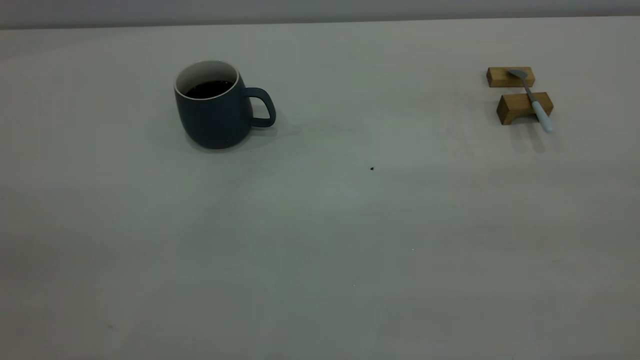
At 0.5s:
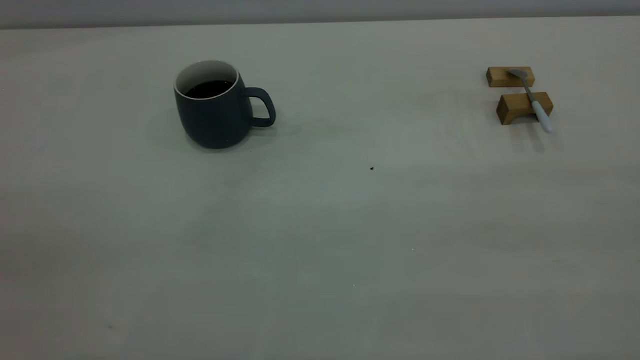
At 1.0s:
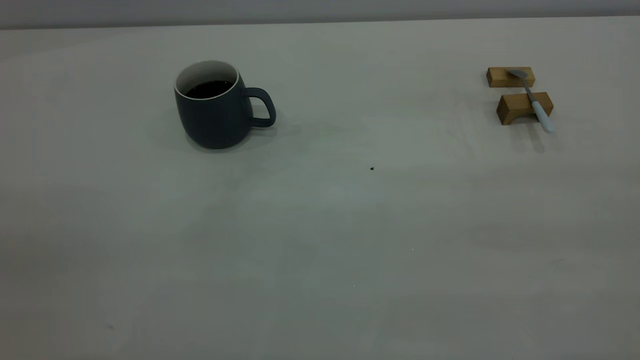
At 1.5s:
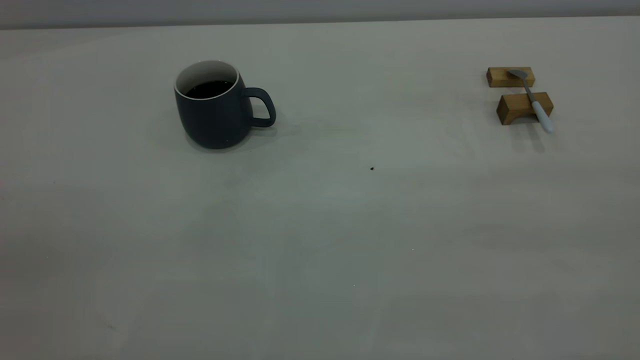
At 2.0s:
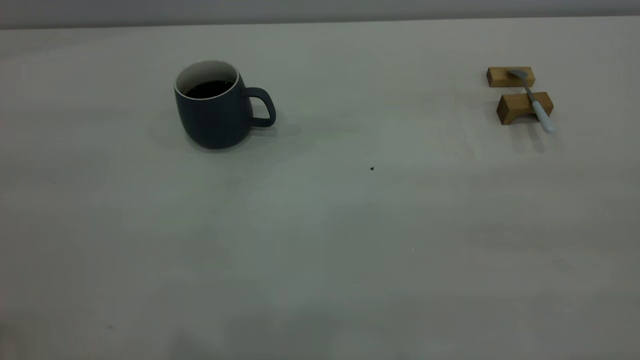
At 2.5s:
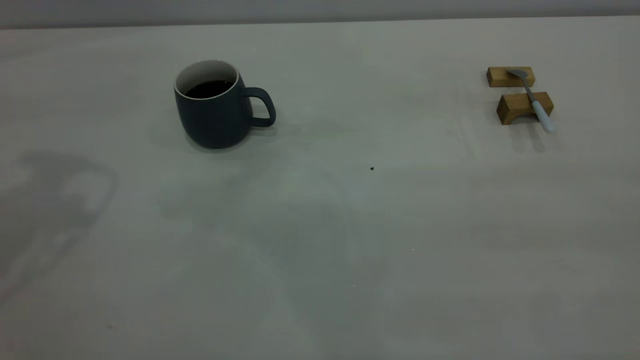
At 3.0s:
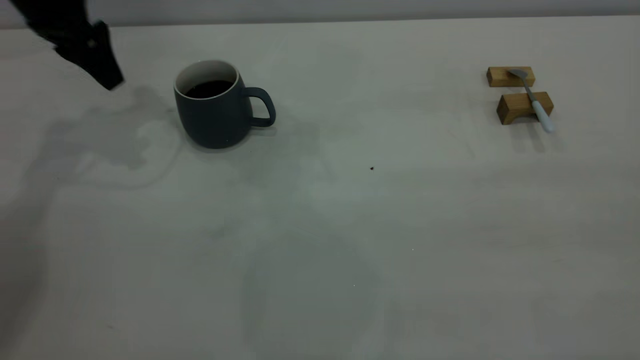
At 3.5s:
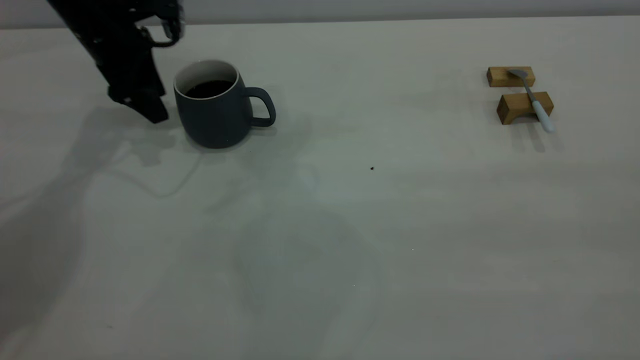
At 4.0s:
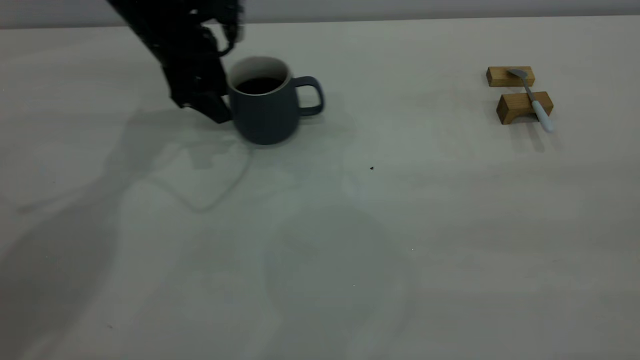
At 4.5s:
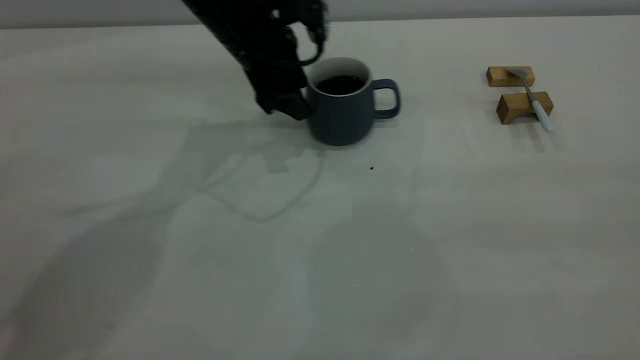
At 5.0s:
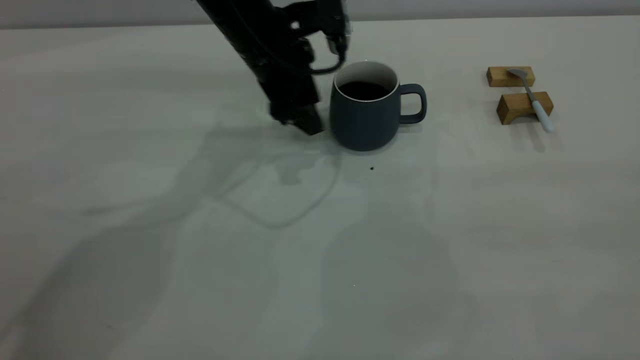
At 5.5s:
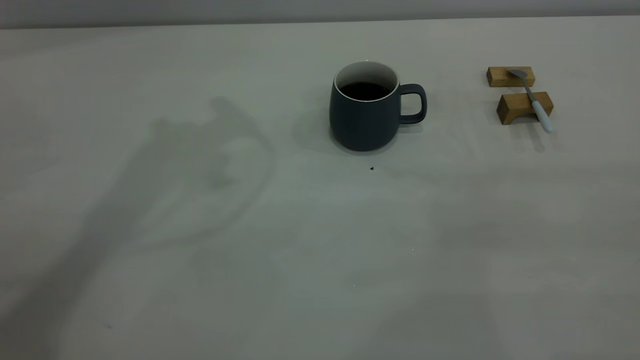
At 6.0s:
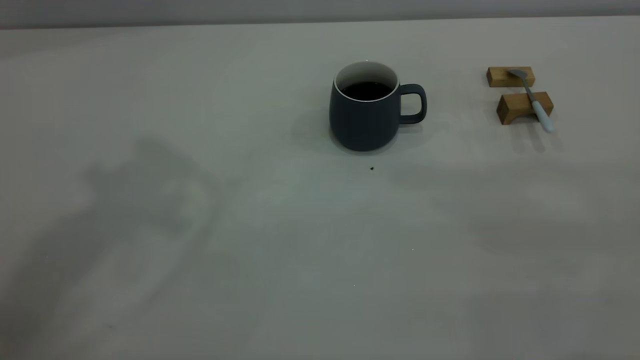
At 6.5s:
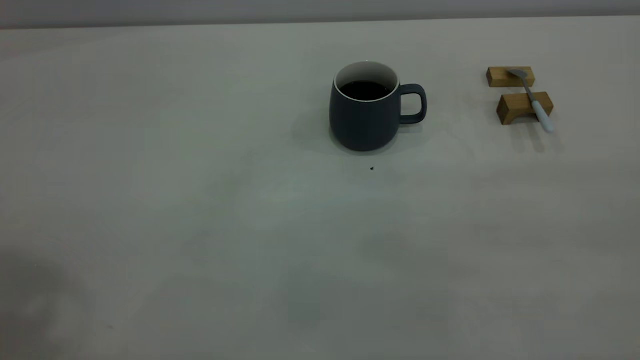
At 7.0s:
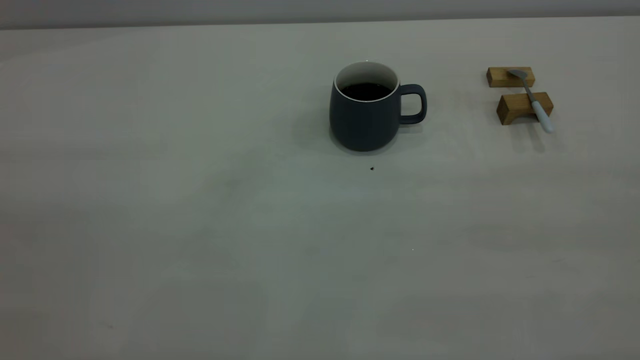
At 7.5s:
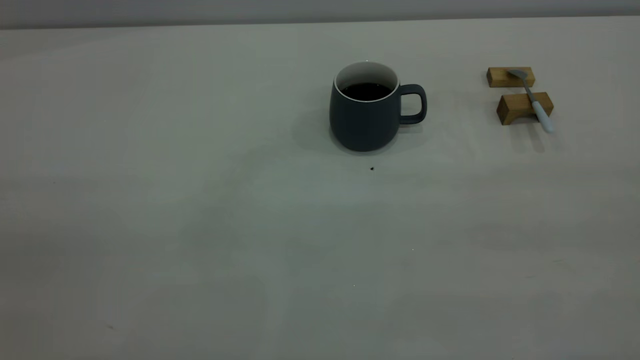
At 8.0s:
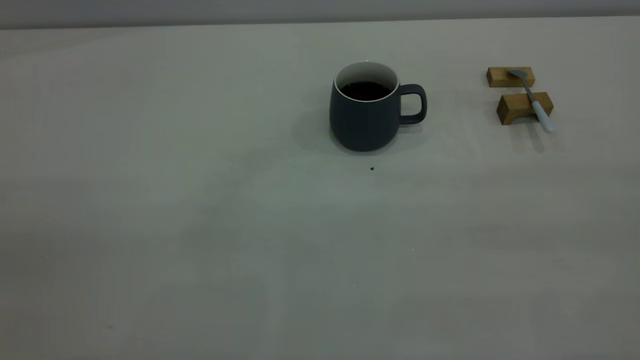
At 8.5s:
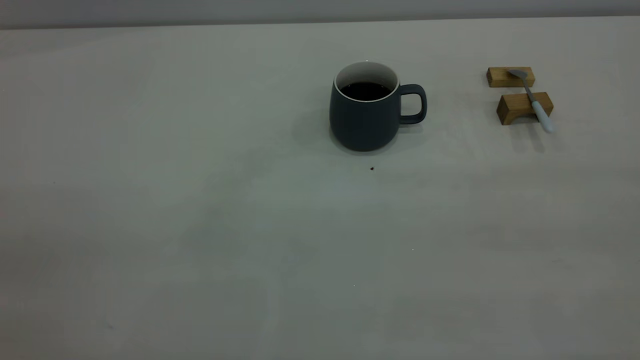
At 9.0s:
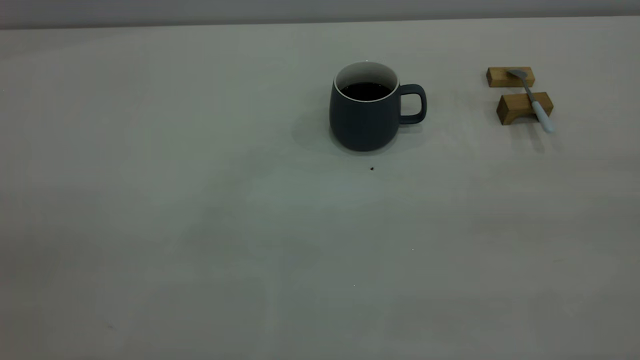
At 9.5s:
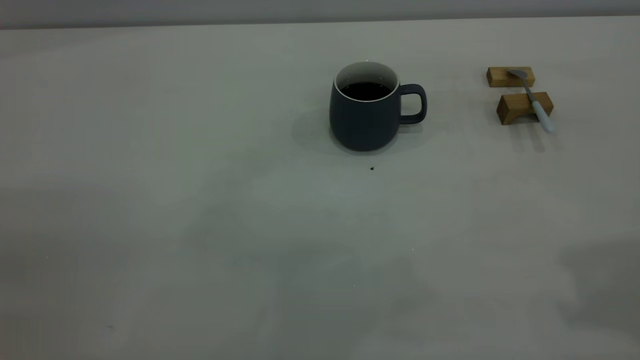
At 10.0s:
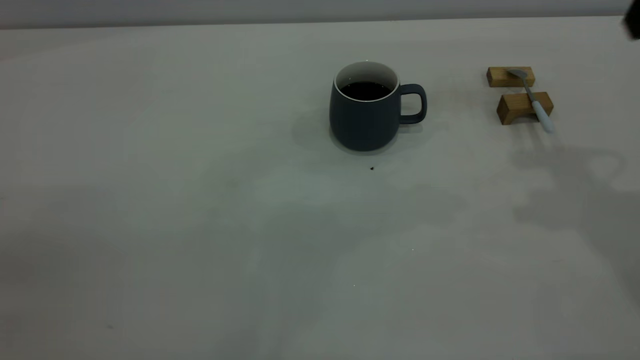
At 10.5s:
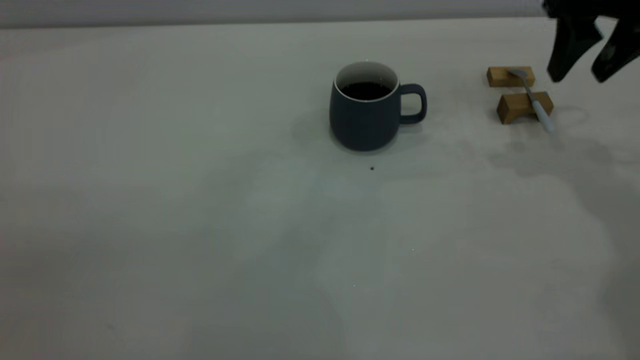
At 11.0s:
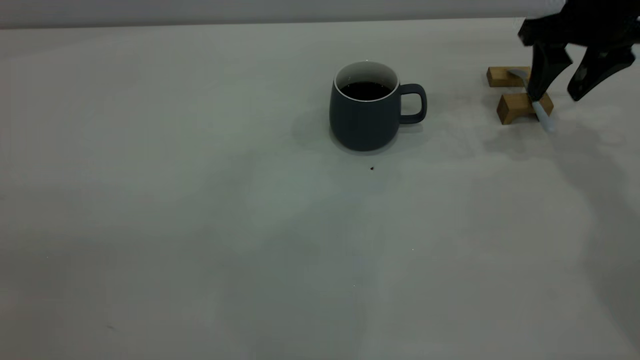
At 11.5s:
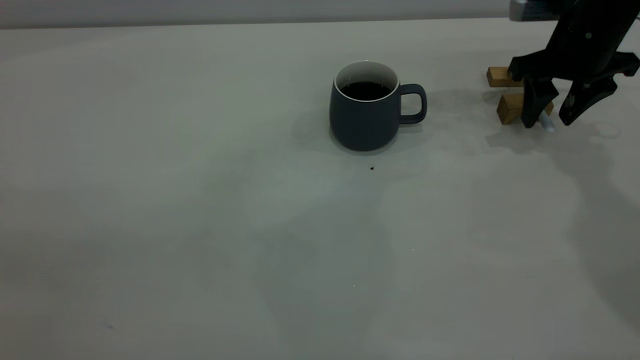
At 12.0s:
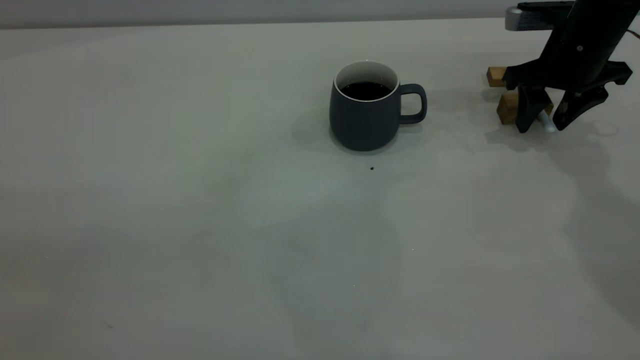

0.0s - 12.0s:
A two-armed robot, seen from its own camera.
Step, 0.0s - 5.0s: Move the cup with coffee to the center of view.
2.0s - 4.0s: The left gripper travels forward and downward by about 40 cm.
4.0s - 6.0s: The left gripper heads upward and backward, covering about 40 cm.
10.0s - 12.0s: The right gripper is displaced downward and forward by approximately 25 cm.

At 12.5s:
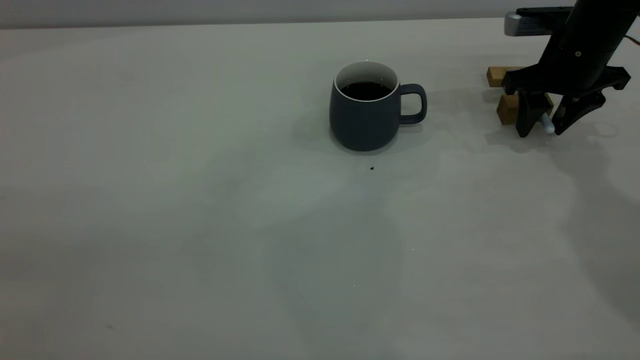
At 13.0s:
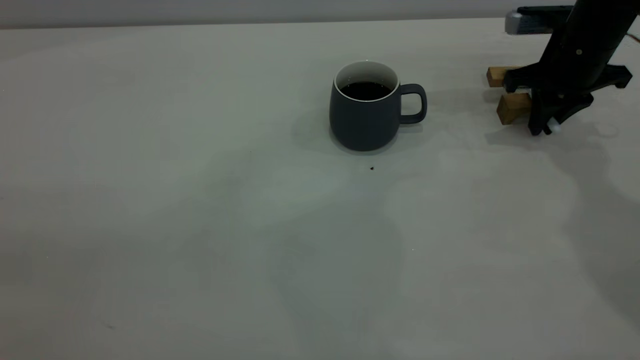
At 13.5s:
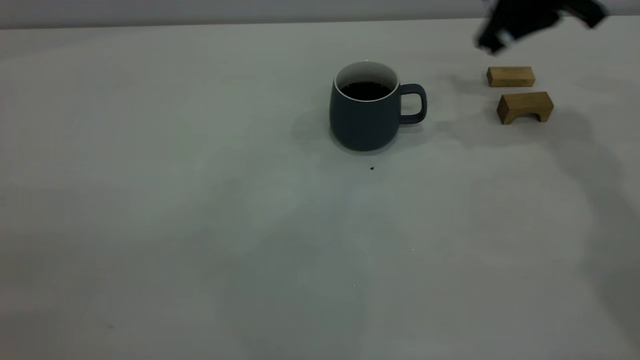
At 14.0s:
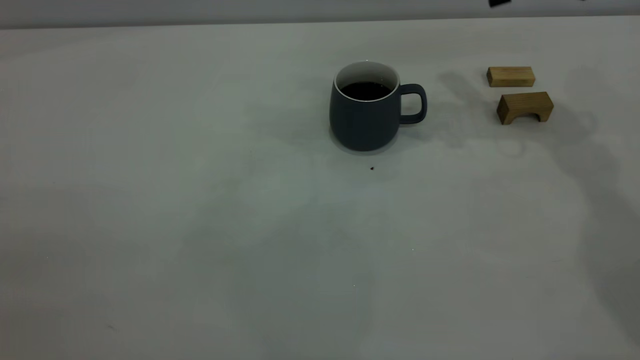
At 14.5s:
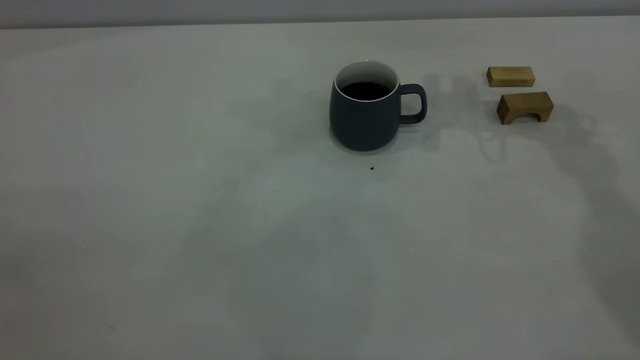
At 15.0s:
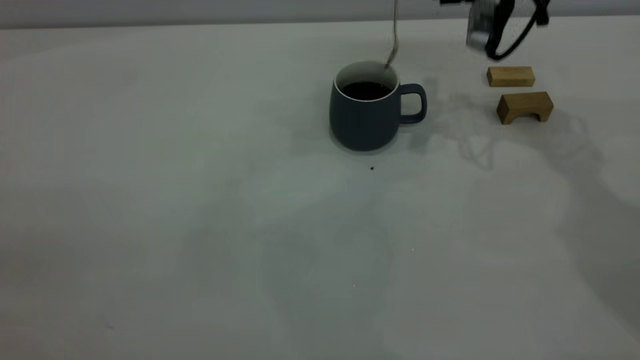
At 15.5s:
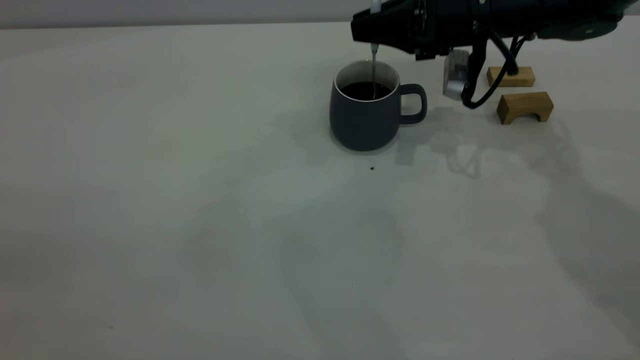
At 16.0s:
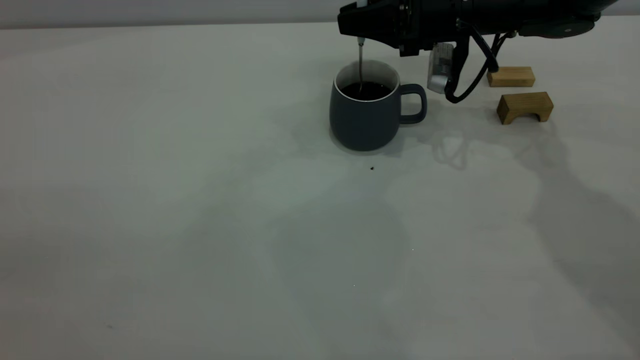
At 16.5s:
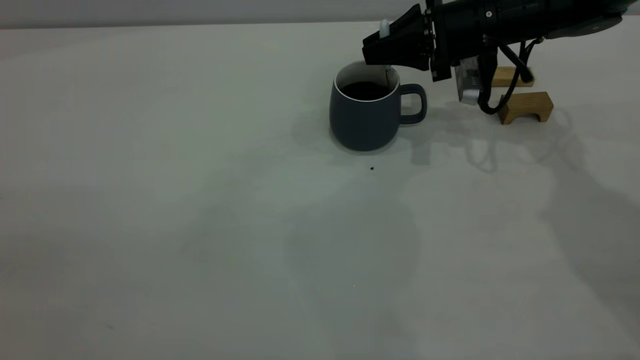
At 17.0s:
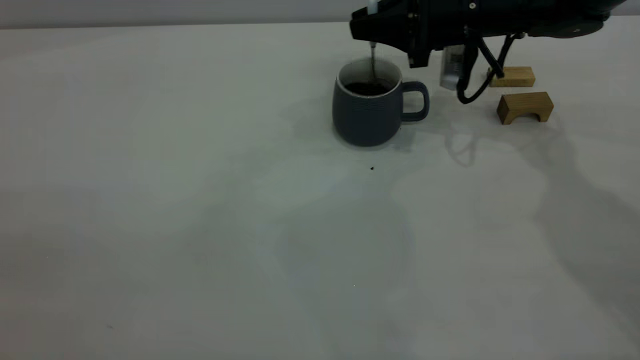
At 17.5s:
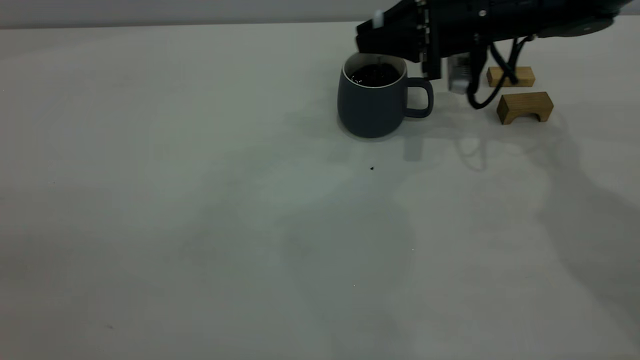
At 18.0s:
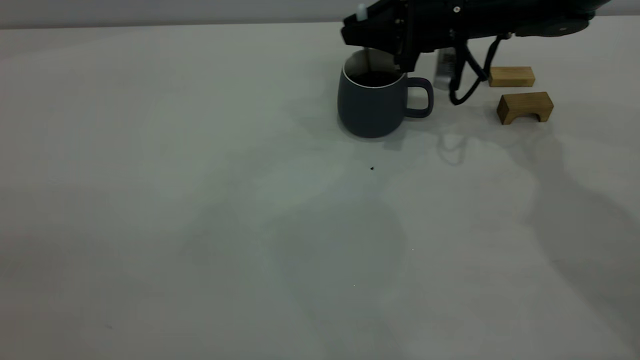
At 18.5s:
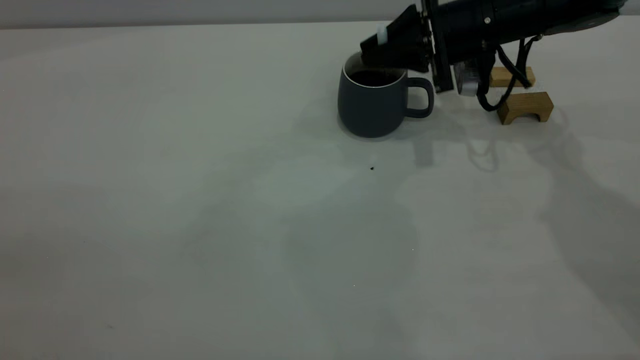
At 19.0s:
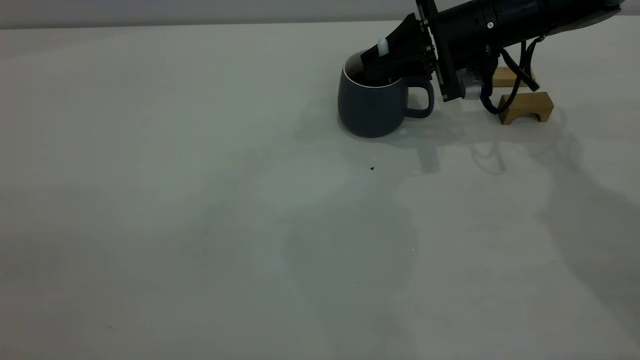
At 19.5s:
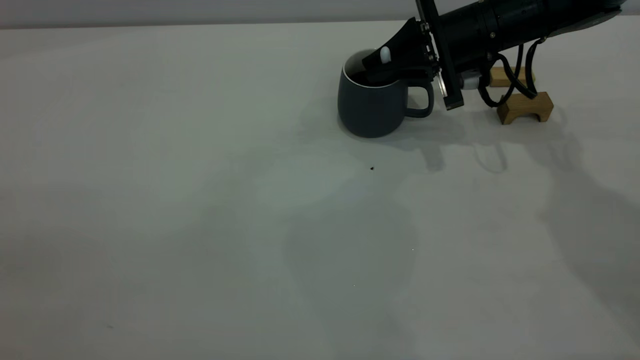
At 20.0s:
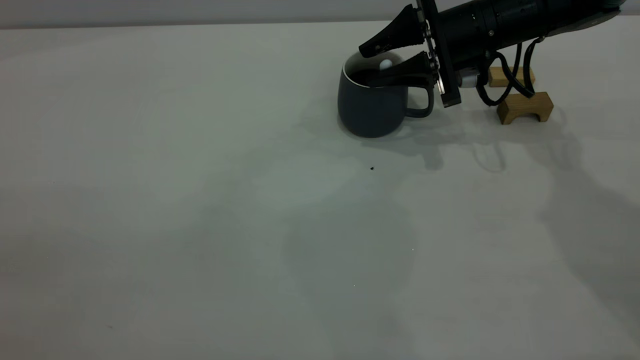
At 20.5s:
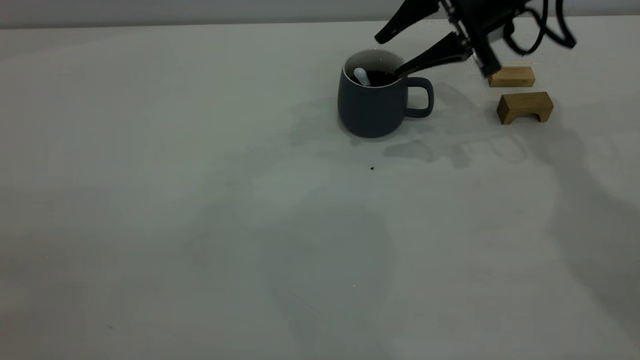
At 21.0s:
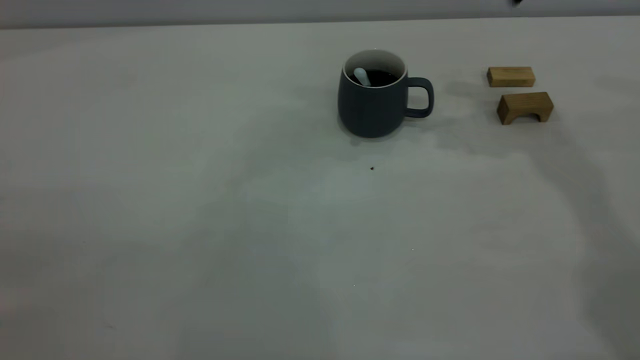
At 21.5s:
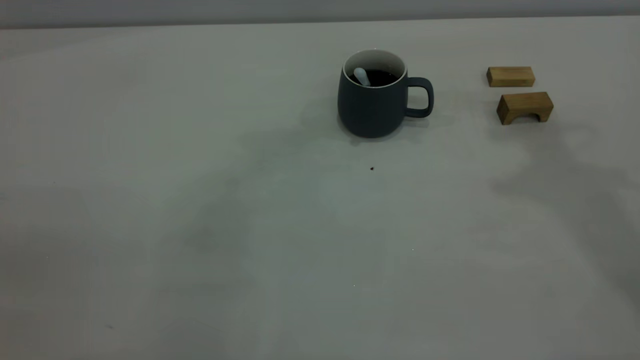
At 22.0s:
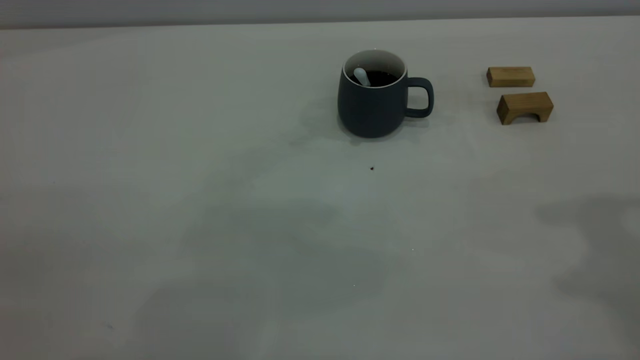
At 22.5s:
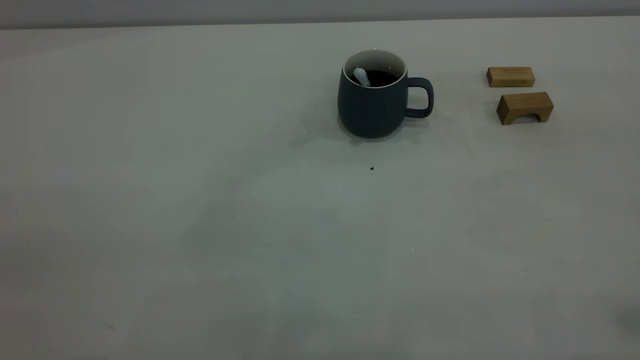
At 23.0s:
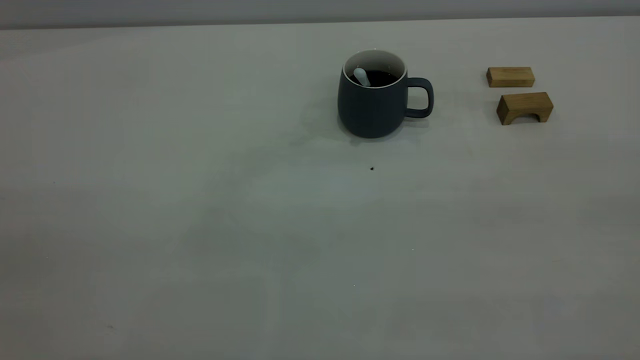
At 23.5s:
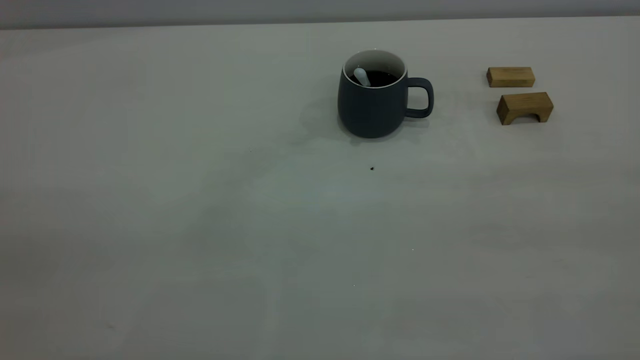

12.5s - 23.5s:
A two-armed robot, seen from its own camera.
Step, 13.5s - 20.5s: Stir the coffee in the cup.
12.5s - 14.5s: The right gripper heads upward and to the left, covering approximately 15 cm, and closes.
14.5s - 16.0s: The right gripper travels downward by roughly 15 cm.
16.0s - 18.0s: The grippers move only a little.
18.0s - 20.0s: The right gripper opens up.
20.0s - 21.5s: The right gripper goes approximately 35 cm upward and backward, and closes up.
